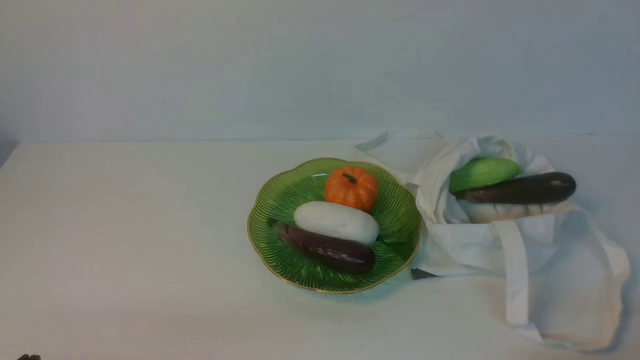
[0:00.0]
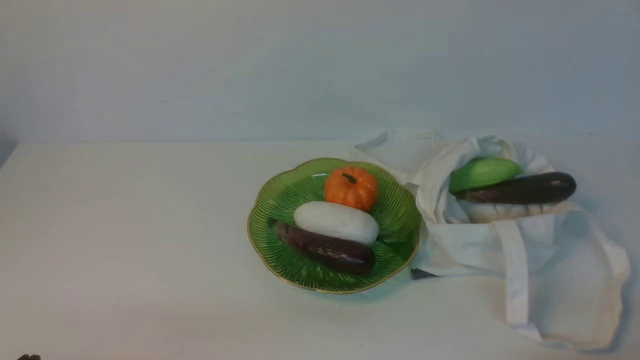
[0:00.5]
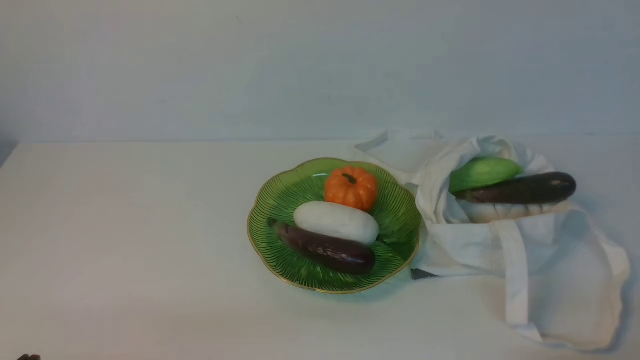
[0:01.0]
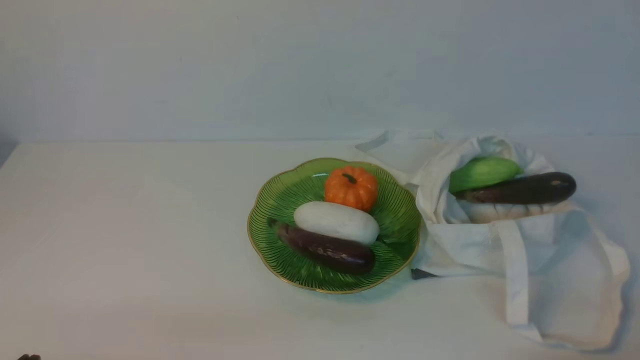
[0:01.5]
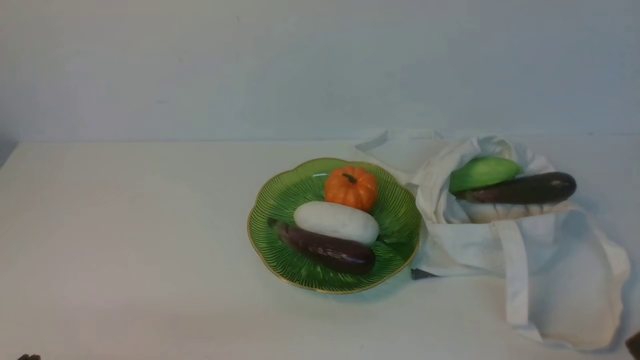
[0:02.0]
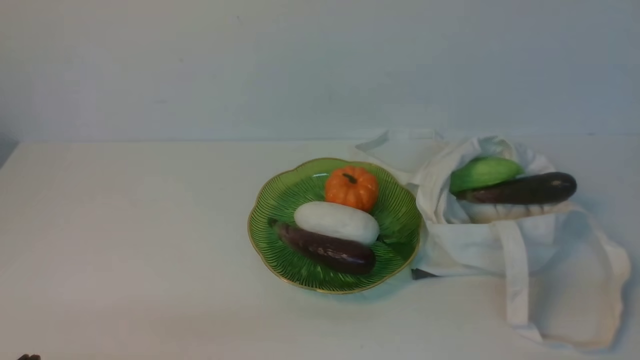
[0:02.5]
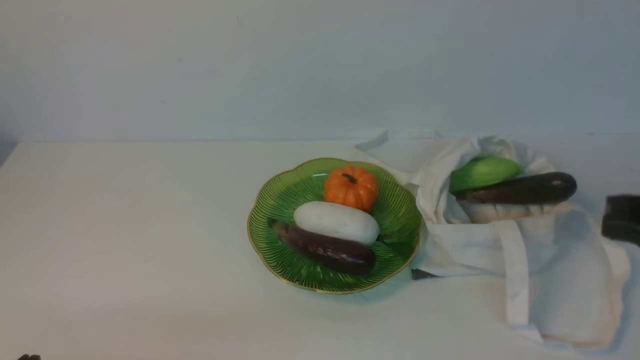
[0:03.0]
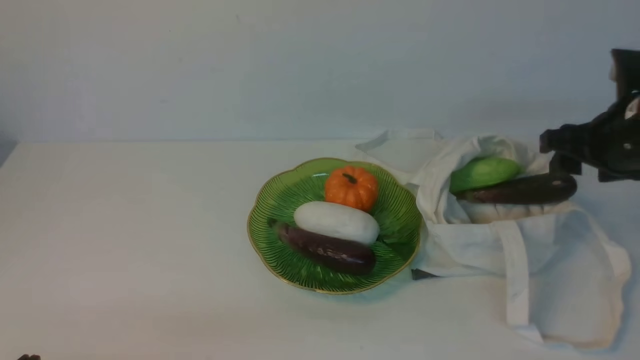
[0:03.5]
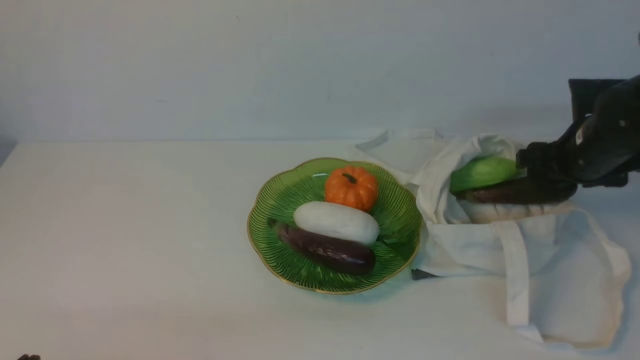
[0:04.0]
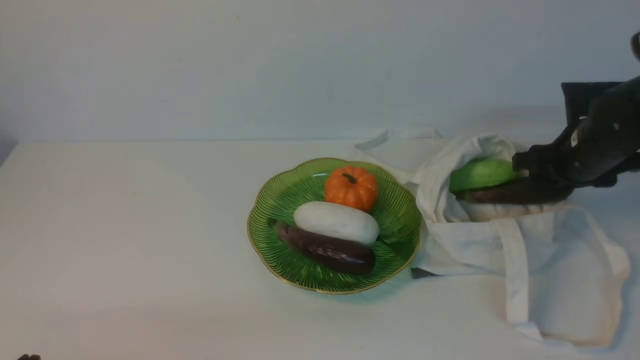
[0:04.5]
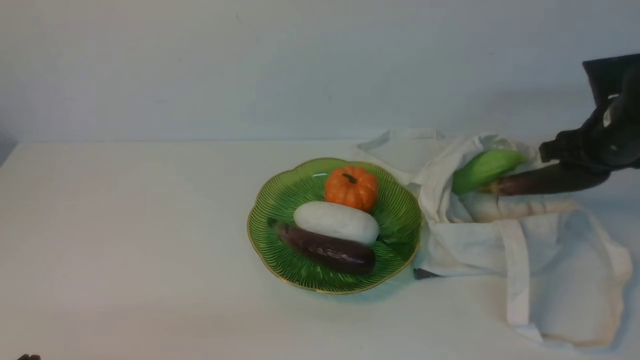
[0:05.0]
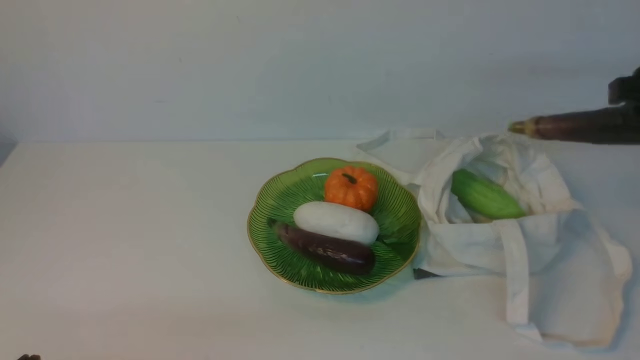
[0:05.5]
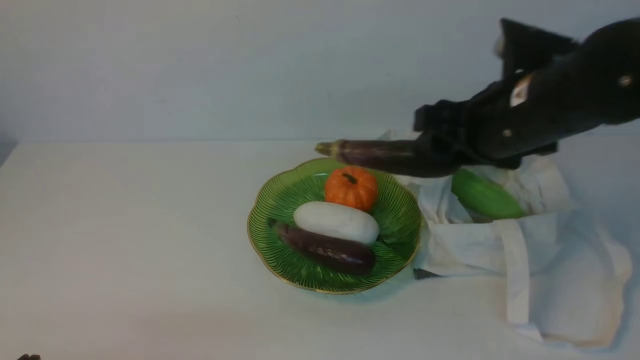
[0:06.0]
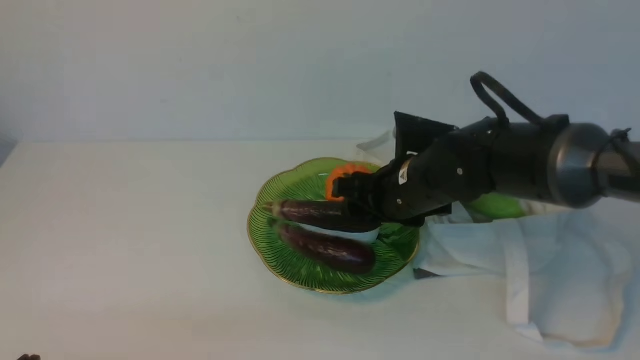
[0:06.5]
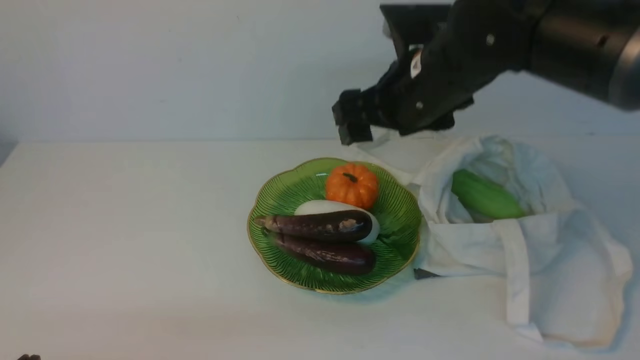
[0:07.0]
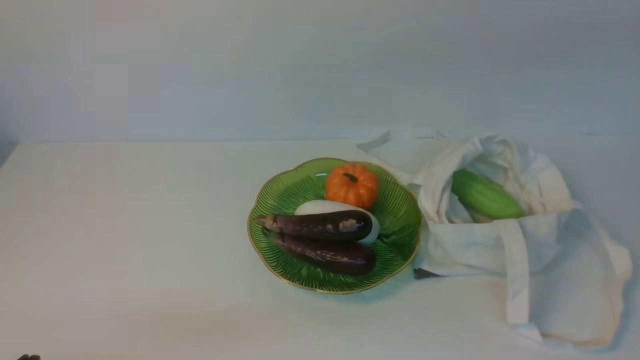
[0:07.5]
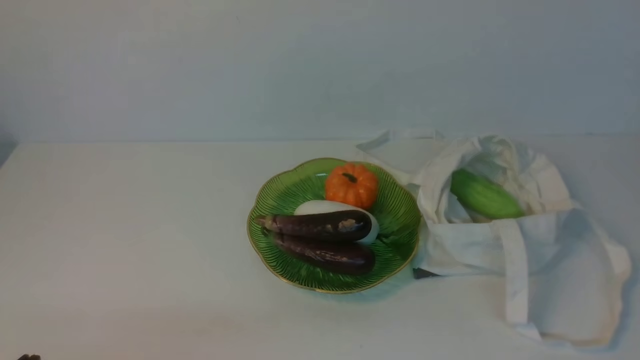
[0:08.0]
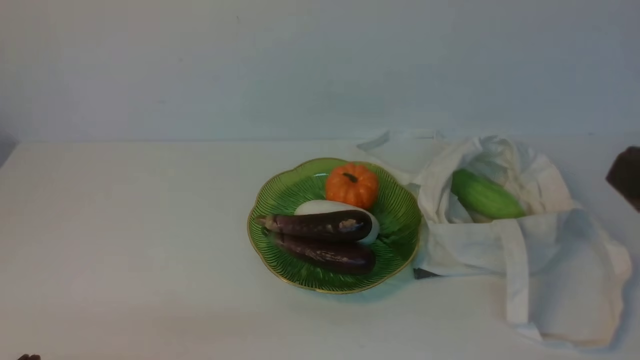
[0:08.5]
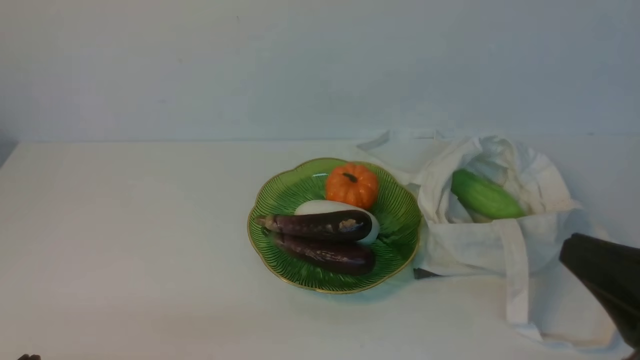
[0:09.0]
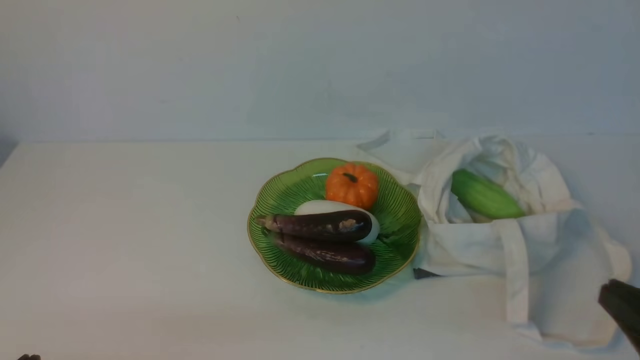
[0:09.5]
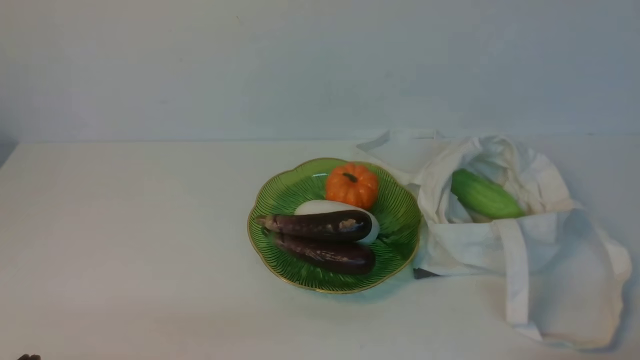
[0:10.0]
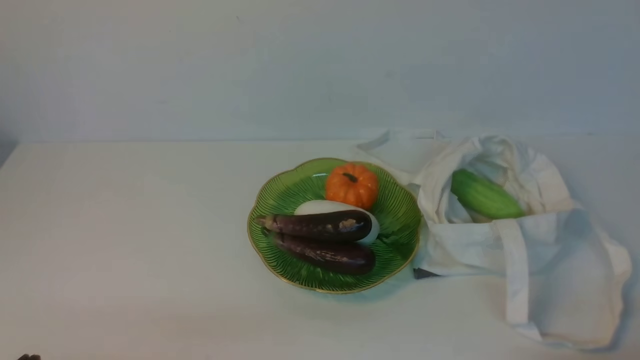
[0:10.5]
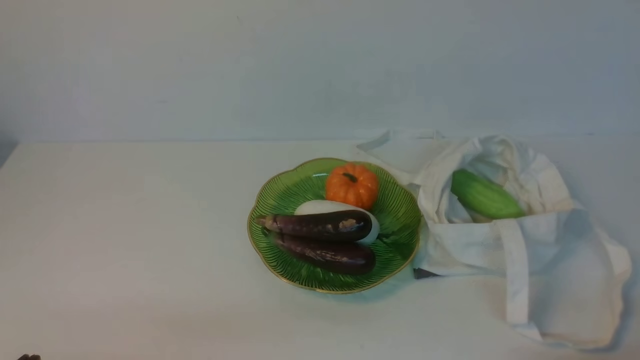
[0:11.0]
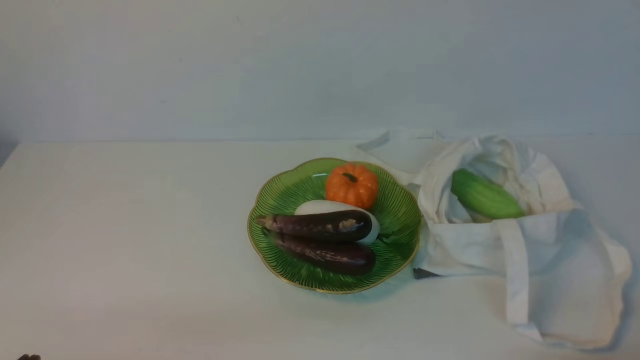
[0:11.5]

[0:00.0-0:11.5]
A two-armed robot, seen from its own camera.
Task of the whole recording: take vegetables from cloth bag on white table place on plate.
Step, 0:00.0 to 0:04.0: Grasp the eggplant with right gripper.
Step, 0:04.5 to 0:06.5: Place the eggplant on the plate with right gripper.
0:02.0 to 0:04.0: The right gripper heads forward, covering about 35 cm, and opens its fingers.
0:04.0 to 0:06.0: The right gripper is displaced to the left, upward and backward by roughly 15 cm.
0:06.0 to 0:07.5: The right gripper goes roughly 20 cm upward.
0:07.5 to 0:09.5: The right gripper moves downward, backward and to the right, about 35 cm, and closes up.
0:09.5 to 0:11.5: The right gripper is displaced downward by approximately 5 cm.
